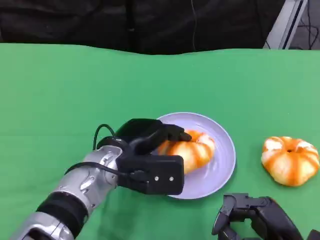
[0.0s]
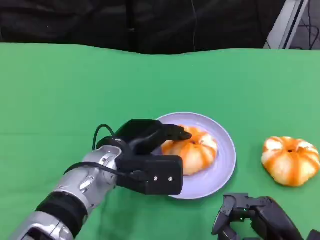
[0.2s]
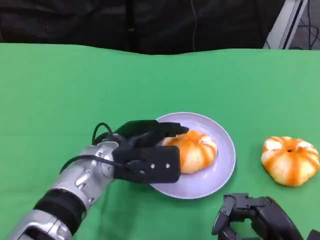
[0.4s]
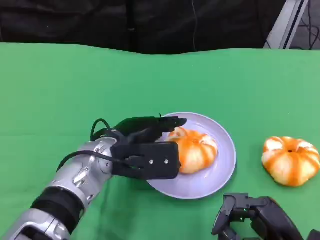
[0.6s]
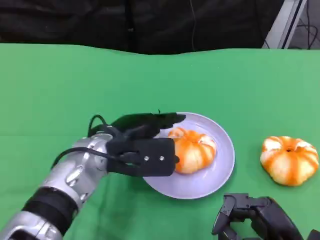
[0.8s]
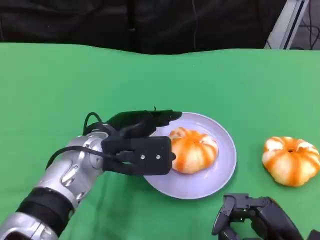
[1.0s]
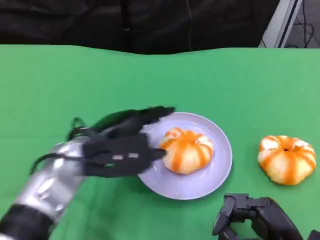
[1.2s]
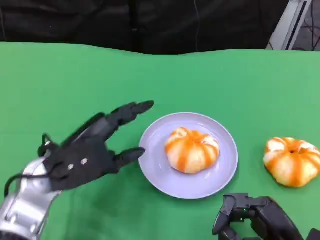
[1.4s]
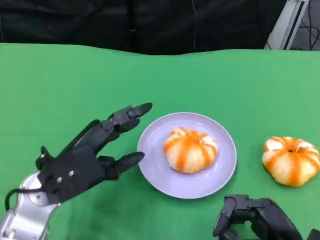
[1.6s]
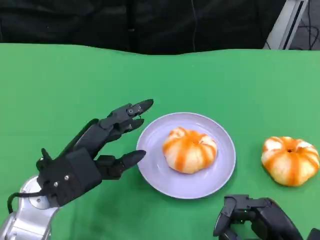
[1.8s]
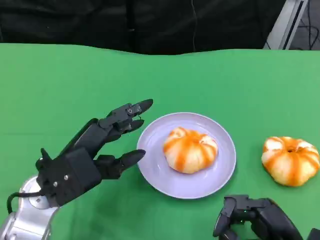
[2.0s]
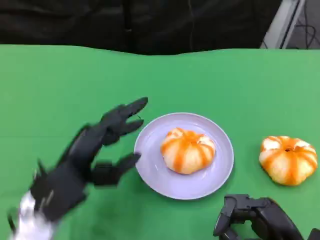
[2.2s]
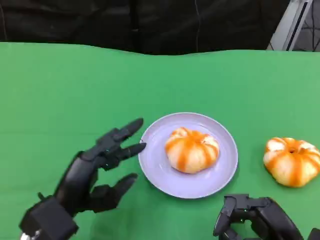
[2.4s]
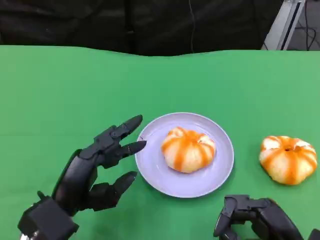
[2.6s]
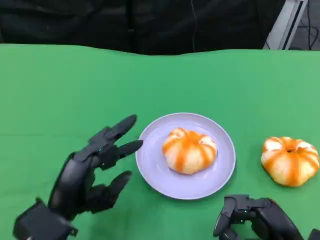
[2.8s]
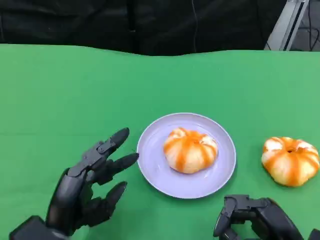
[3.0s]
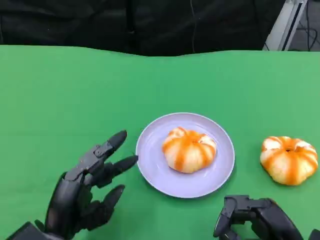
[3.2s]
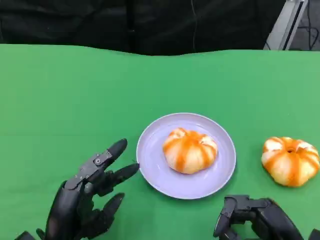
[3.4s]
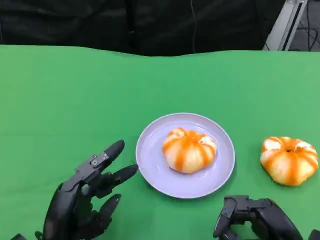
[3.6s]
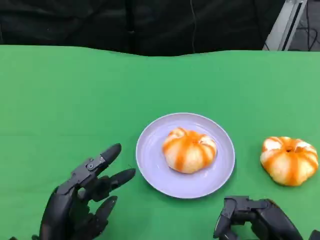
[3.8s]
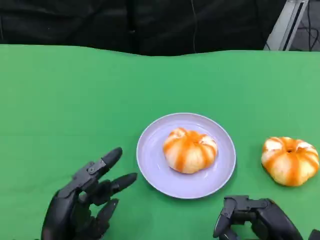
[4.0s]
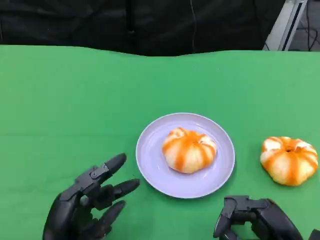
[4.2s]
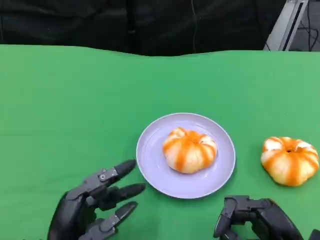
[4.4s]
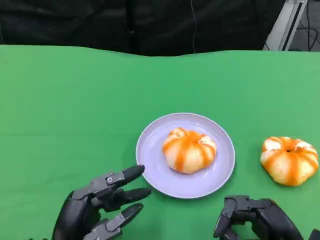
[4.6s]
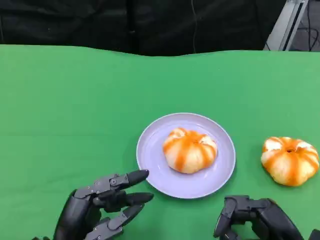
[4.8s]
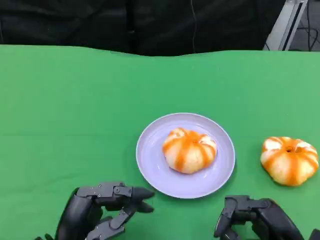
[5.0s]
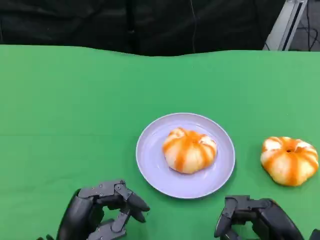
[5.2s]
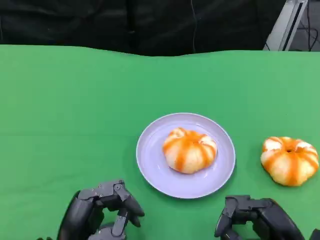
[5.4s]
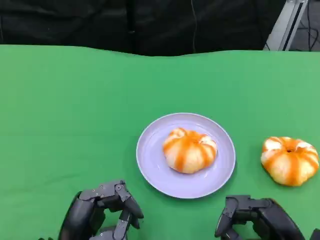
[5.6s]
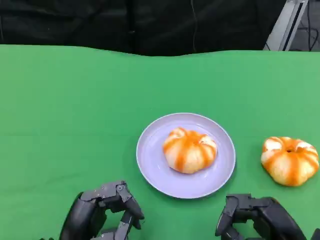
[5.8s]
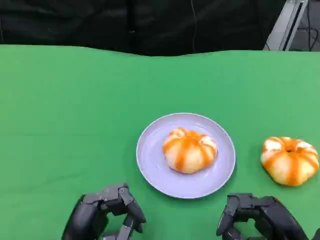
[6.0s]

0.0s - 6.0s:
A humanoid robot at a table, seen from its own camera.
Task of the whole recording: Grasp the bread from the table and place it into the plate.
0.0s - 1.6s: The left hand moves to the left, roughly 10 cm.
1.6s - 3.0s: The left hand goes some 10 cm backward and downward.
3.0s - 6.0s: There are only small adjustments of the hands.

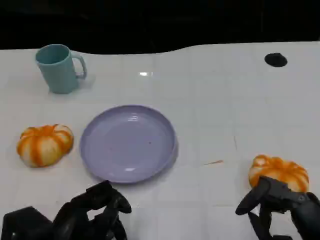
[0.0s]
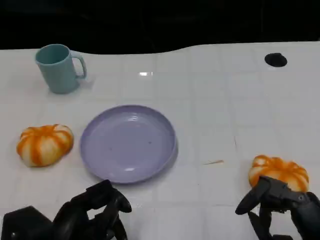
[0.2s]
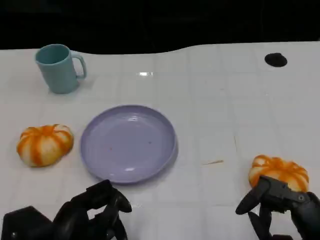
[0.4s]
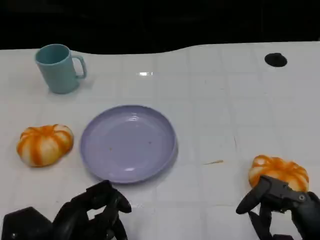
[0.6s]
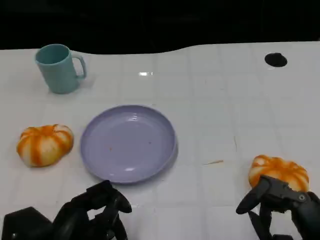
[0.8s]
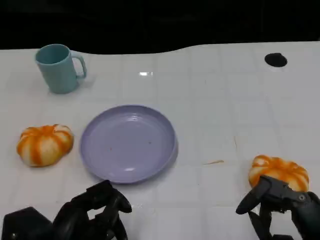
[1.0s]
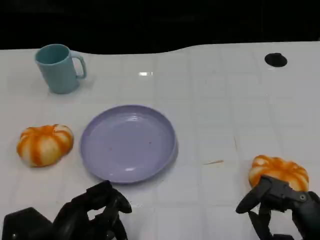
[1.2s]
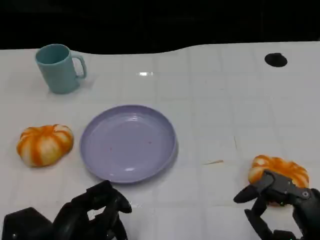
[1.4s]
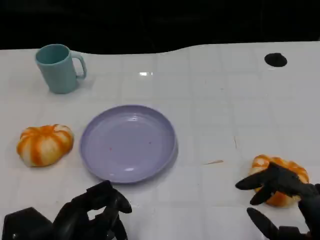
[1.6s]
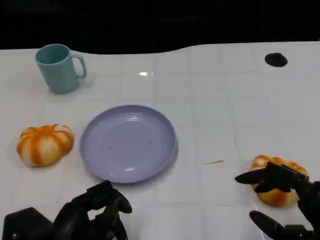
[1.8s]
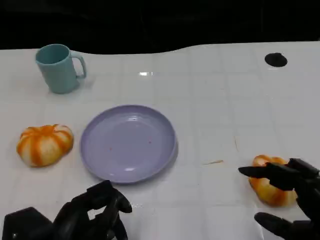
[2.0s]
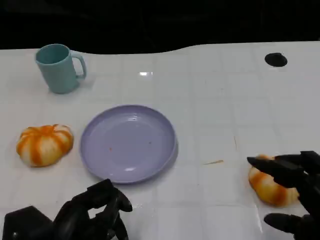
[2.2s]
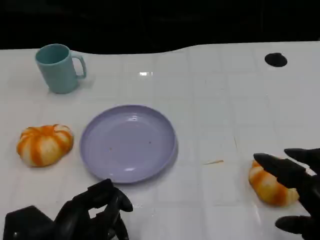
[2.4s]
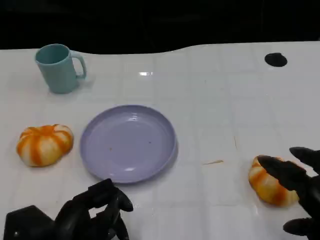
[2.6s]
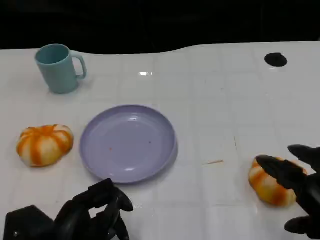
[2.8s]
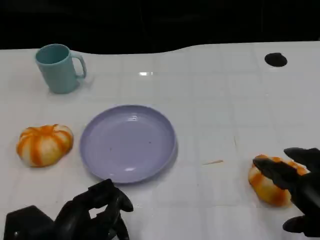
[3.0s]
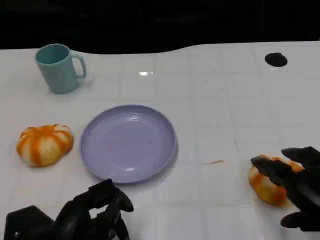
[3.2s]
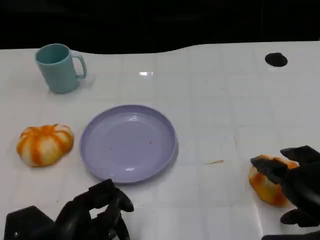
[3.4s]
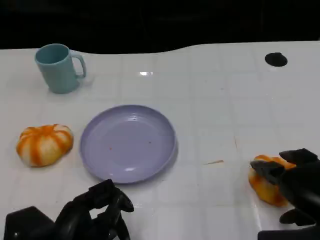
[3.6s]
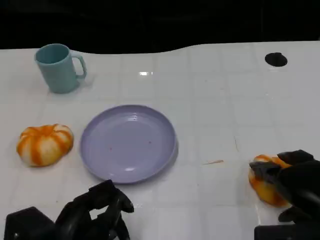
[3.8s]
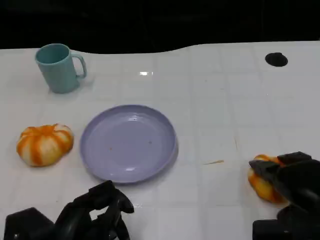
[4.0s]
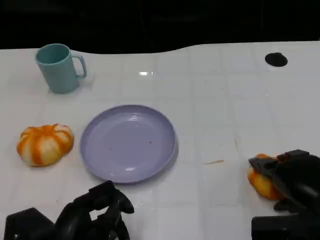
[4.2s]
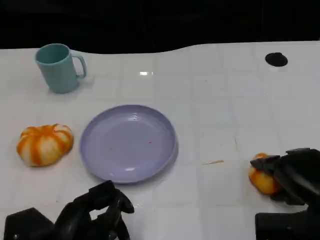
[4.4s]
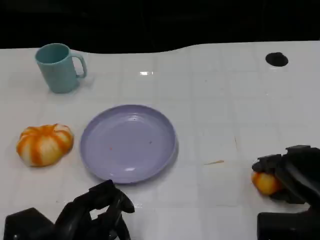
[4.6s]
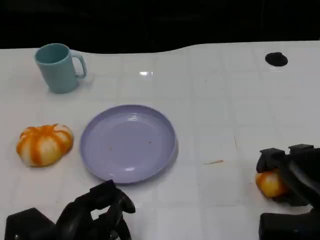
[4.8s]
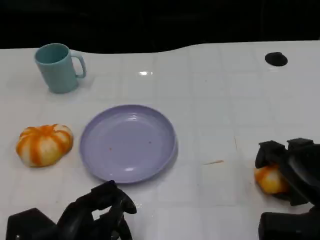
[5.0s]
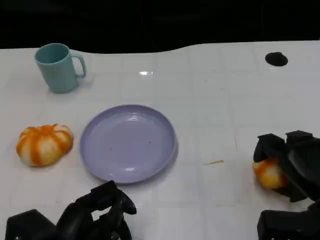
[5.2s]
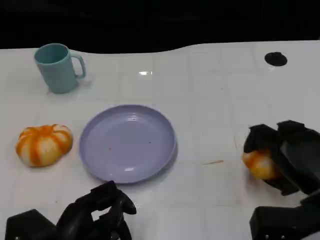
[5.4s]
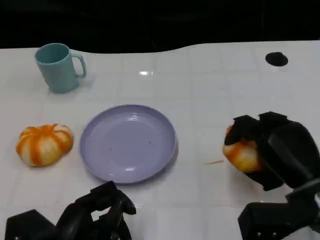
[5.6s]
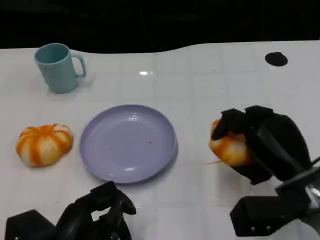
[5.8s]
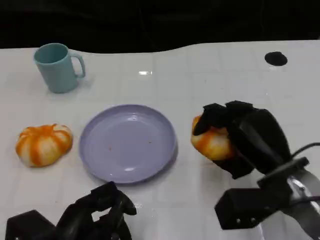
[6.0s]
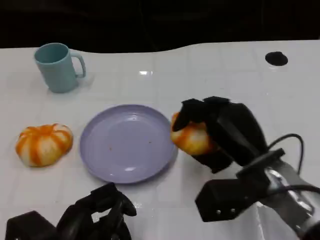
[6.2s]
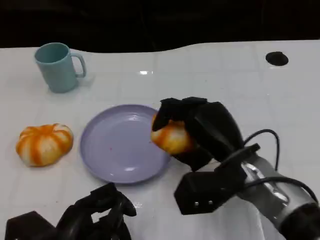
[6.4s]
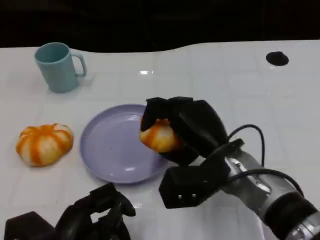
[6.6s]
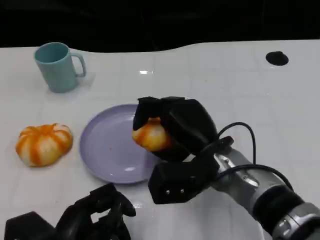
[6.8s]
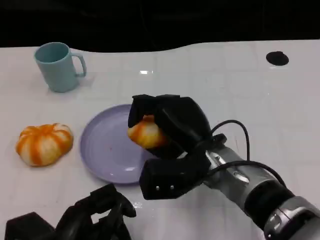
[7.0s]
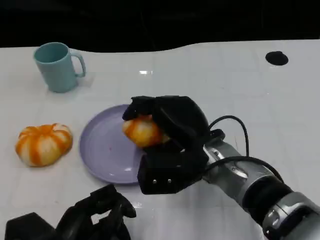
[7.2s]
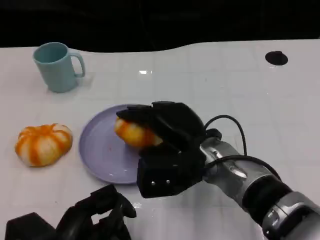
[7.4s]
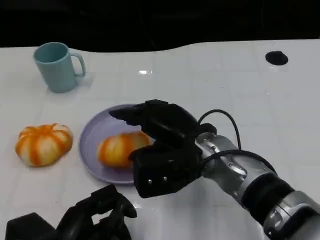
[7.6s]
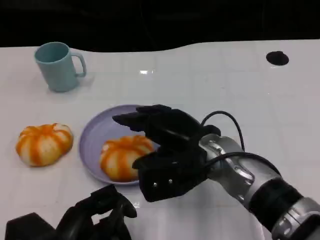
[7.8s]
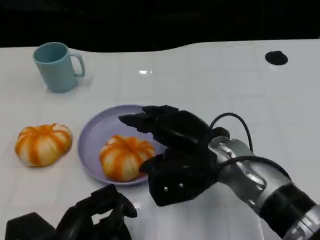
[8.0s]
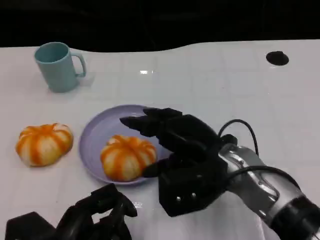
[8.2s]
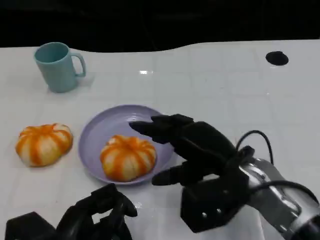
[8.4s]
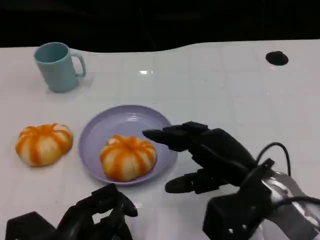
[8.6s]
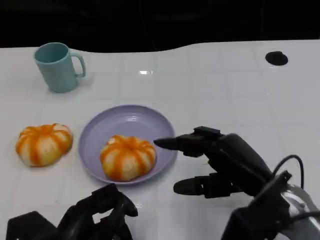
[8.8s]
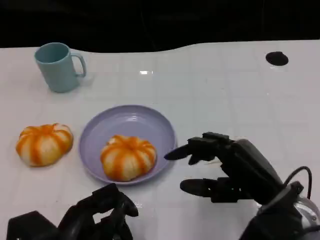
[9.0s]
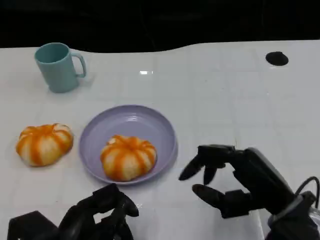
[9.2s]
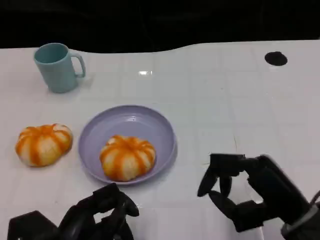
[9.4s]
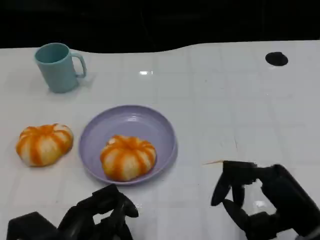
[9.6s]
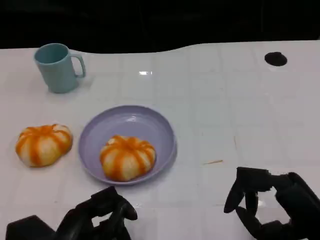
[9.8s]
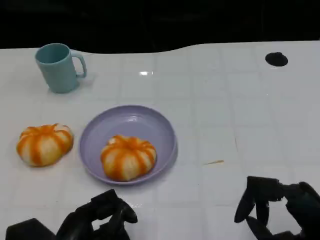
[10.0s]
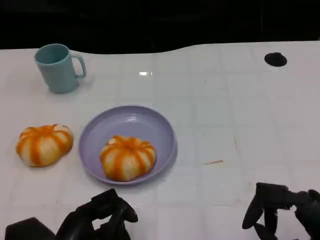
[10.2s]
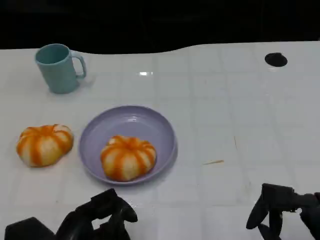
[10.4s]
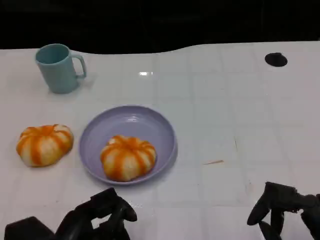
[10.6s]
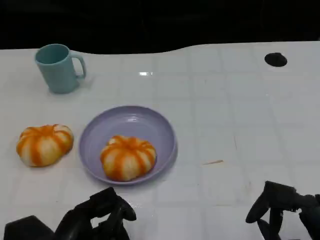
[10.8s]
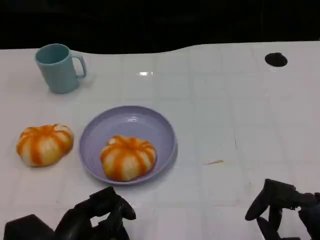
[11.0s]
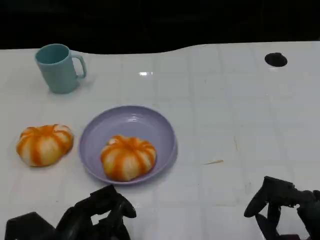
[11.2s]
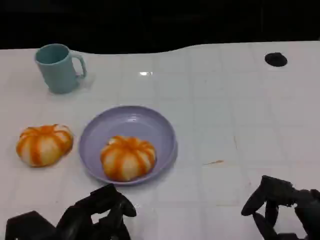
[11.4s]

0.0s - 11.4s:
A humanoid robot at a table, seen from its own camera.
Task of the whole recording: Grasp the bread from the table and place it into the plate.
0.0s - 1.4s: Neither hand changes place.
1.4s - 2.8s: The right hand shifts about 5 cm upward.
2.8s - 4.2s: The right hand heads forward and downward, covering roughly 10 cm.
5.6s - 7.2s: The right hand travels to the left by approximately 15 cm.
7.2s - 8.6s: The right hand is displaced to the right by some 10 cm.
8.6s - 10.0s: The right hand is displaced backward and to the right by roughly 15 cm.
10.0s - 11.4s: The hands make only small movements.

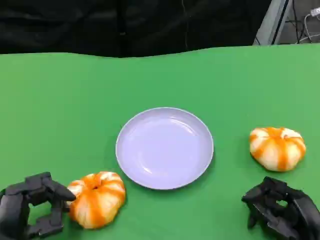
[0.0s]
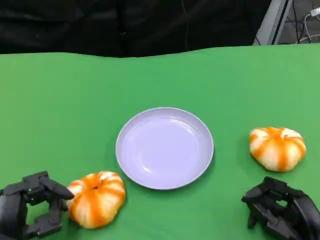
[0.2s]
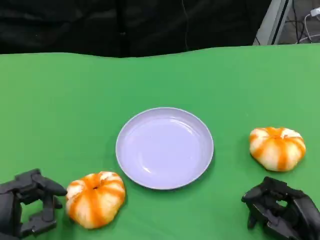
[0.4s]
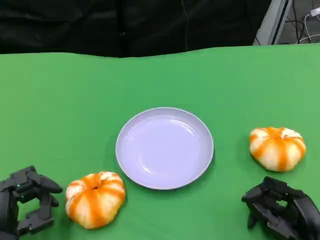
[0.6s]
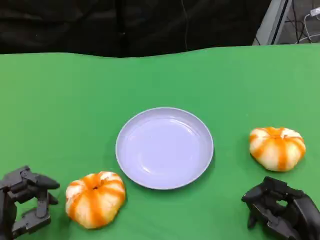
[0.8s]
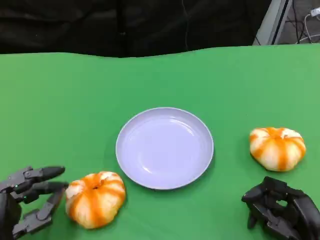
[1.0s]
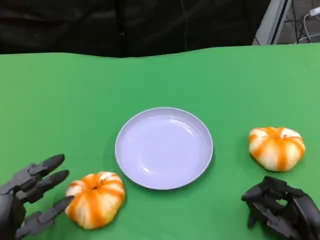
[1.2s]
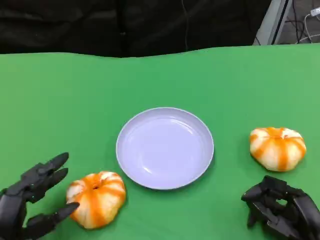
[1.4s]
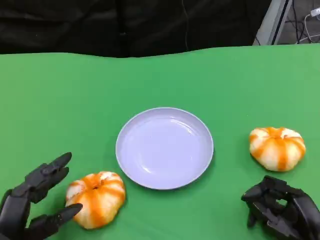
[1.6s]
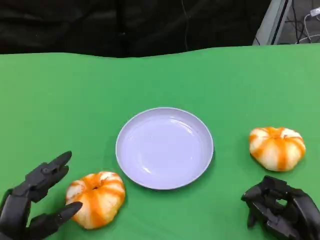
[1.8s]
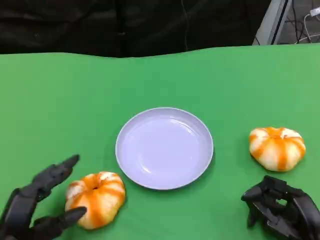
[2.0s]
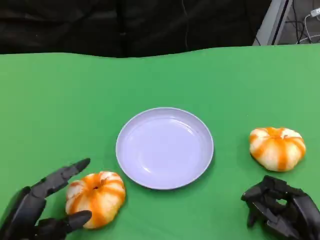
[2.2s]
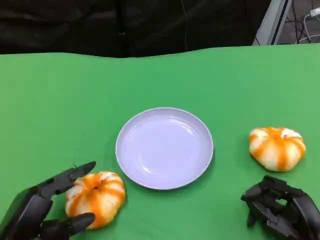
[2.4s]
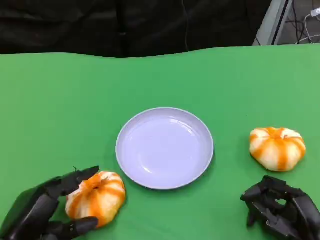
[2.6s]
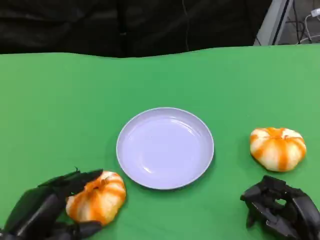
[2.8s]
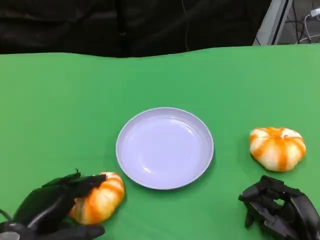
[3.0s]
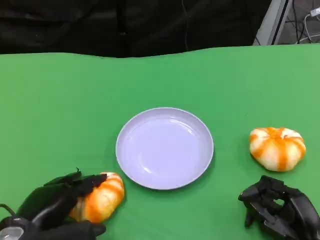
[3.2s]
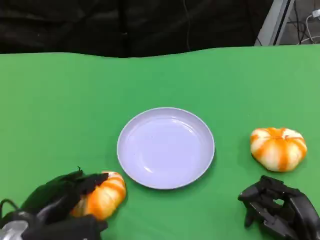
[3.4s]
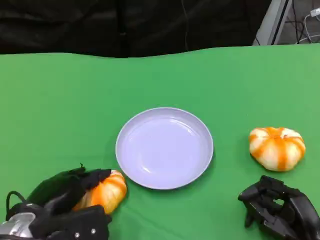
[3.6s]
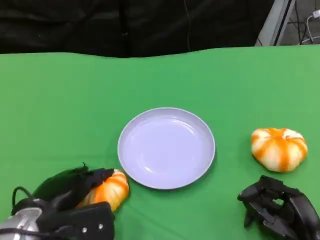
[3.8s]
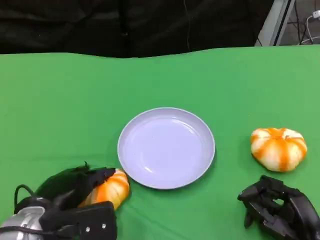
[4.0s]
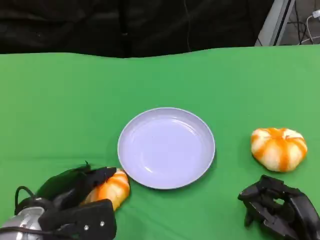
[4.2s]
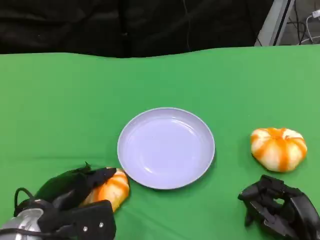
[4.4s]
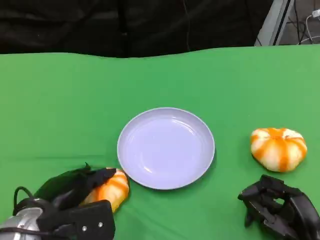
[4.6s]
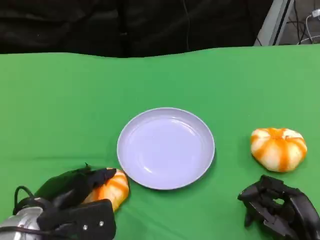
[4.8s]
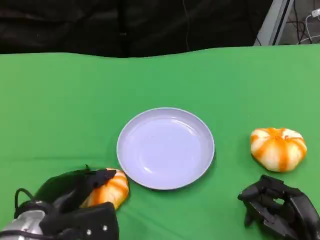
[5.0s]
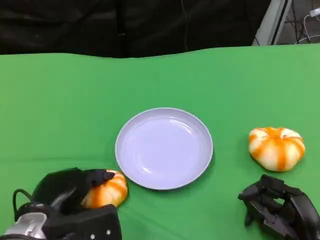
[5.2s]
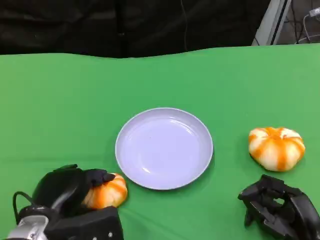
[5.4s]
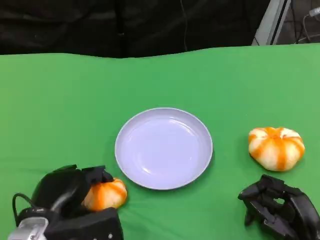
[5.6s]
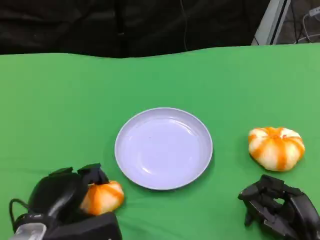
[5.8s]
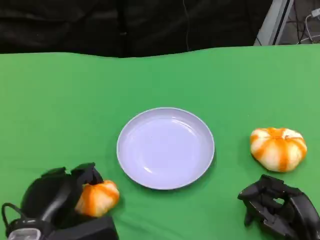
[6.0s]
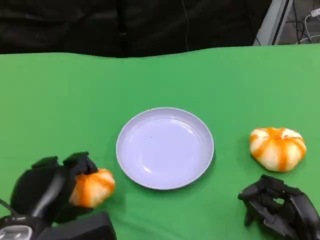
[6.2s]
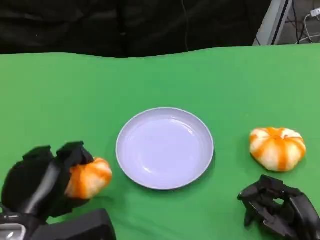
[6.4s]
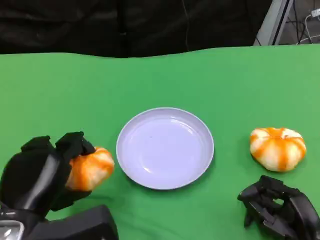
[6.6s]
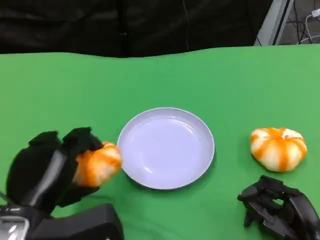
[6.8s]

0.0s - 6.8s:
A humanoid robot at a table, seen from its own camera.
Task of the whole recording: Grasp the bread from the table and place it into the plate.
0.0s - 1.4s: The hands stay close to where they were, moving slightly.
2.8s - 4.0s: The left hand shifts by roughly 5 cm.
4.0s - 5.4s: There are only small adjustments of the hands.
5.4s - 6.8s: The left hand goes some 5 cm upward.
